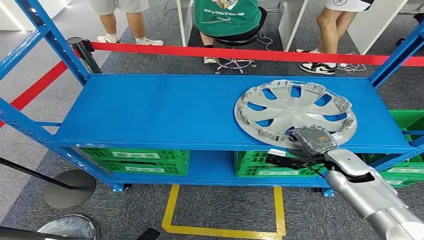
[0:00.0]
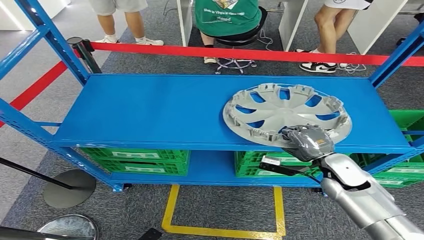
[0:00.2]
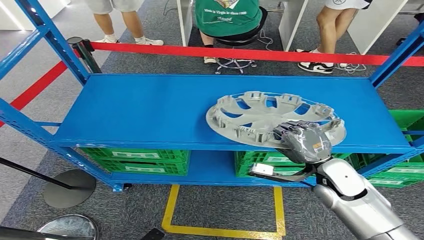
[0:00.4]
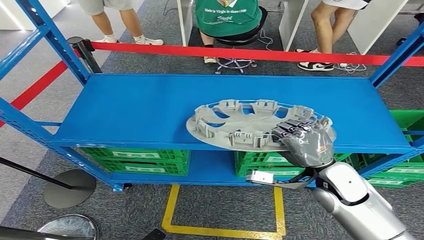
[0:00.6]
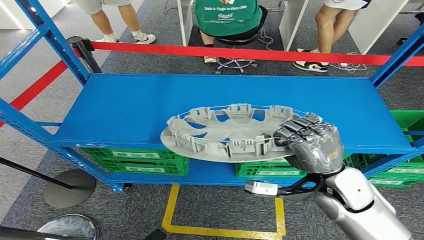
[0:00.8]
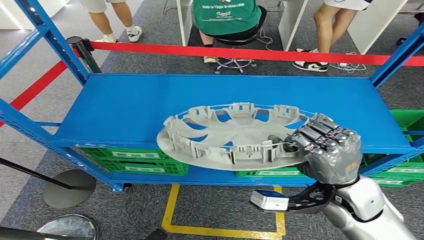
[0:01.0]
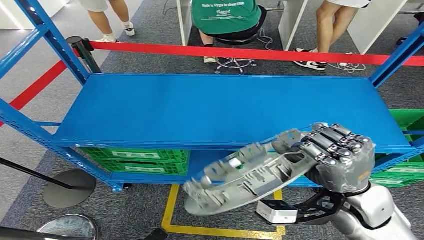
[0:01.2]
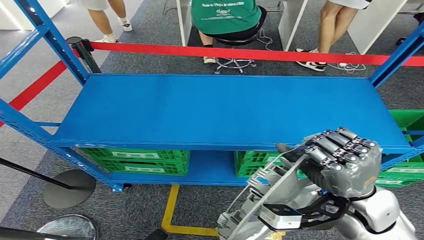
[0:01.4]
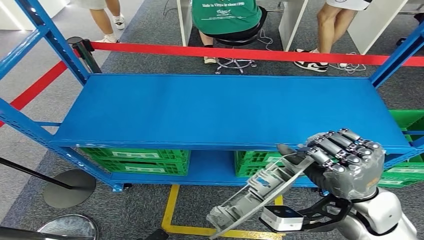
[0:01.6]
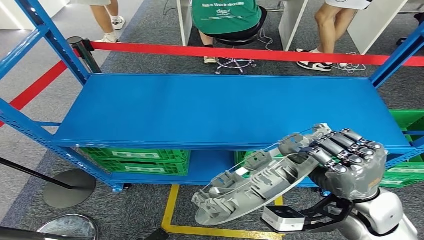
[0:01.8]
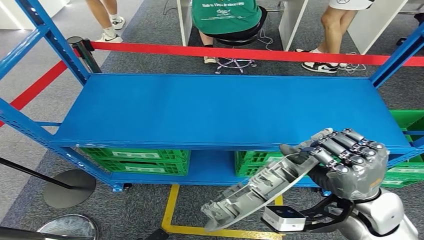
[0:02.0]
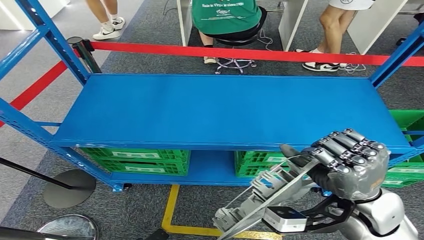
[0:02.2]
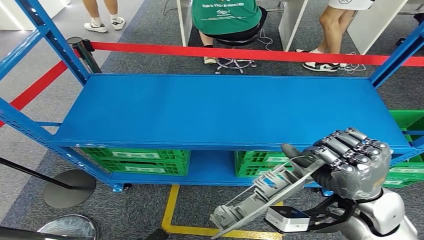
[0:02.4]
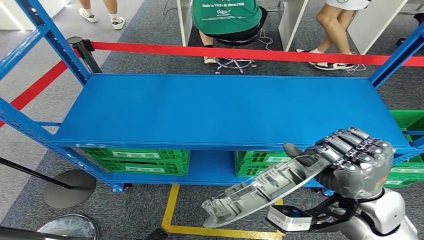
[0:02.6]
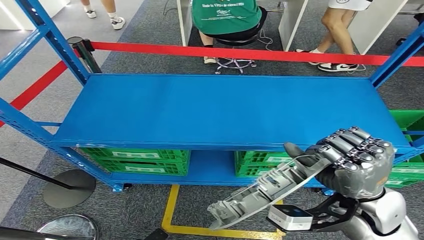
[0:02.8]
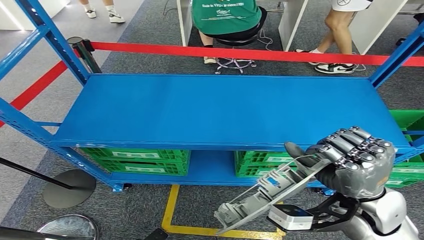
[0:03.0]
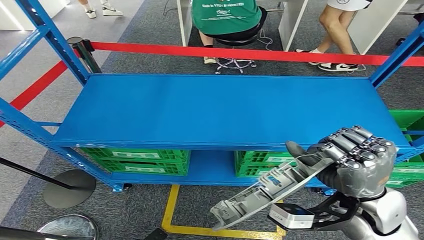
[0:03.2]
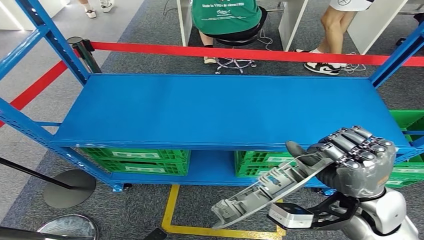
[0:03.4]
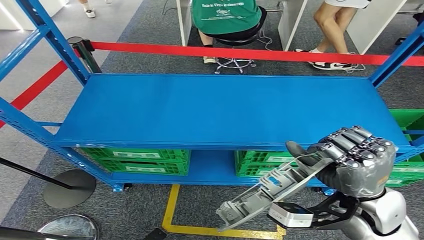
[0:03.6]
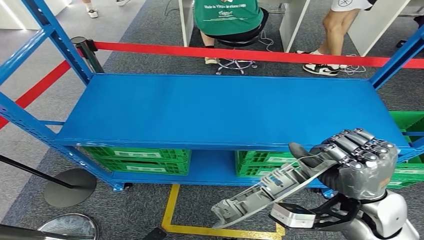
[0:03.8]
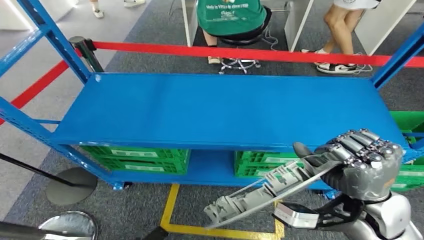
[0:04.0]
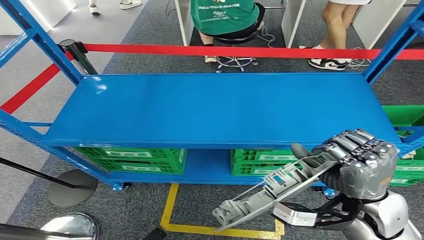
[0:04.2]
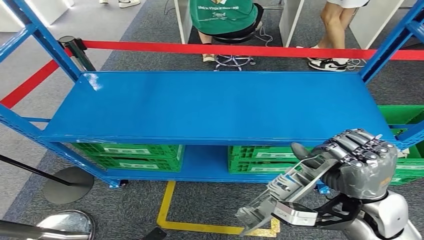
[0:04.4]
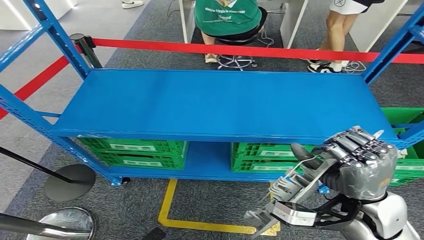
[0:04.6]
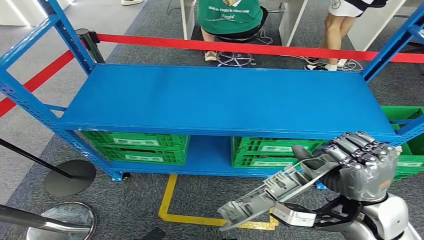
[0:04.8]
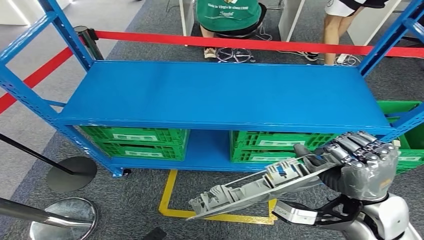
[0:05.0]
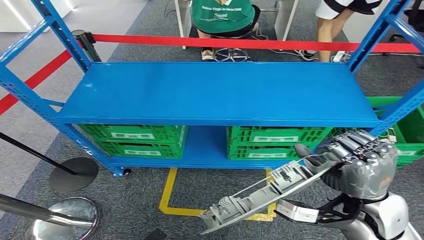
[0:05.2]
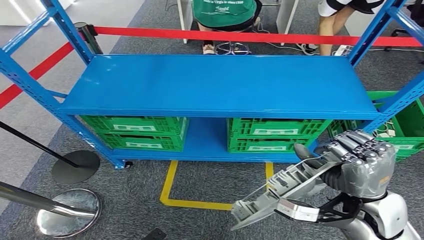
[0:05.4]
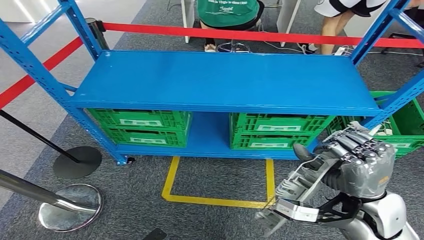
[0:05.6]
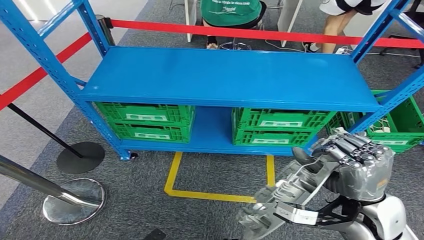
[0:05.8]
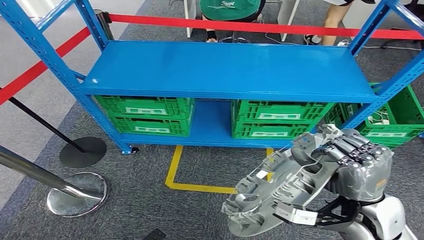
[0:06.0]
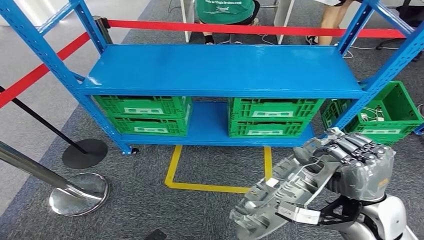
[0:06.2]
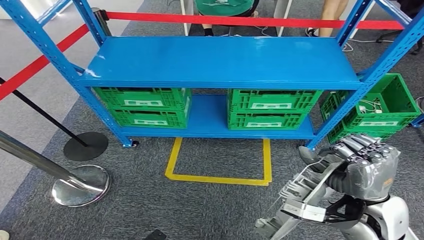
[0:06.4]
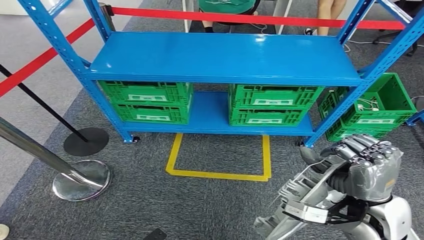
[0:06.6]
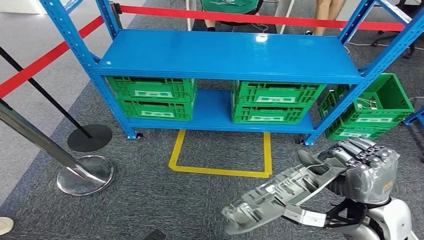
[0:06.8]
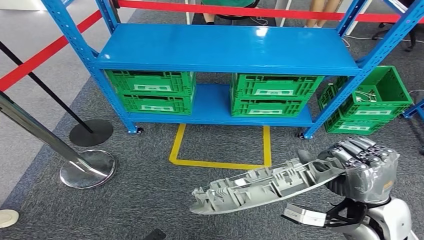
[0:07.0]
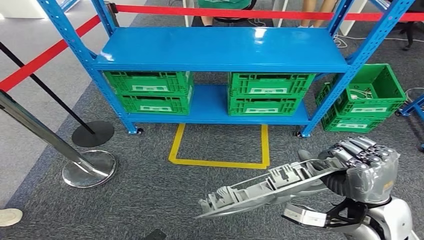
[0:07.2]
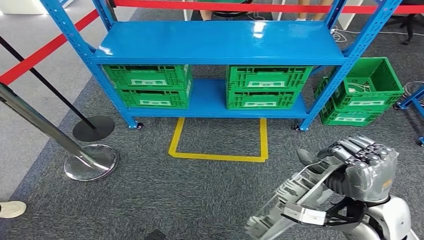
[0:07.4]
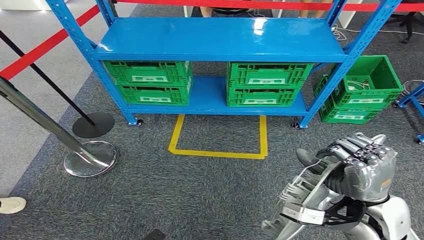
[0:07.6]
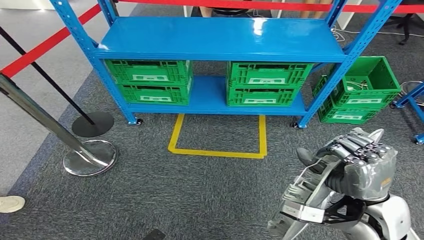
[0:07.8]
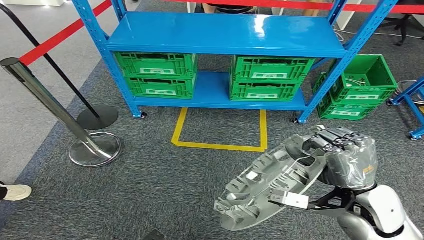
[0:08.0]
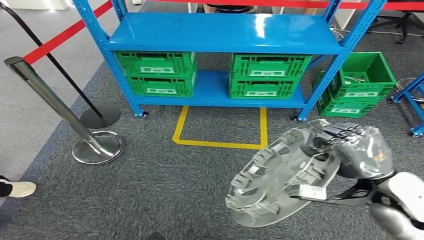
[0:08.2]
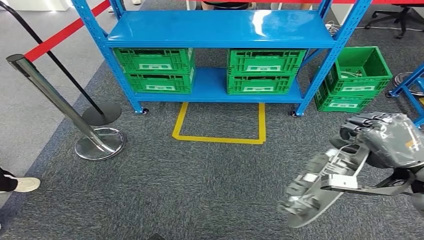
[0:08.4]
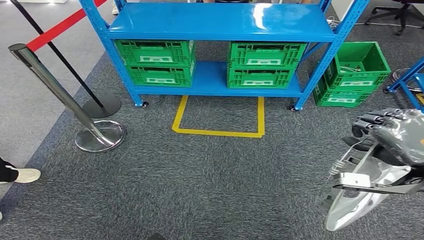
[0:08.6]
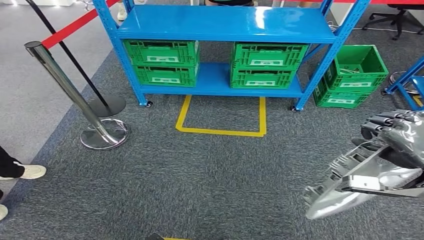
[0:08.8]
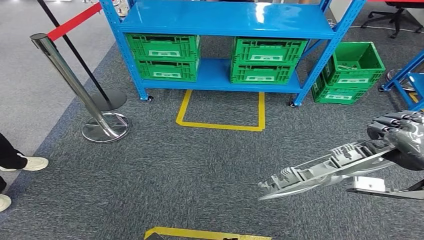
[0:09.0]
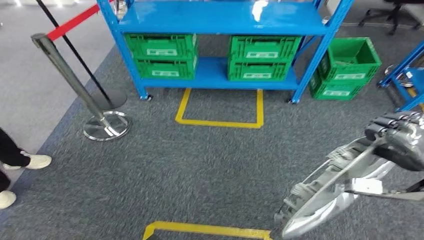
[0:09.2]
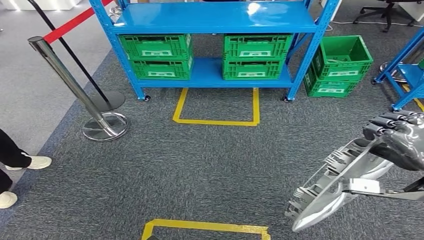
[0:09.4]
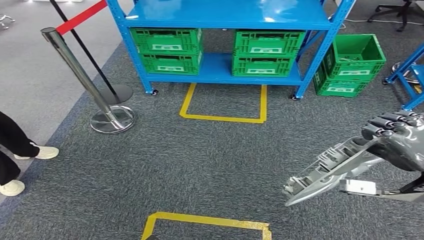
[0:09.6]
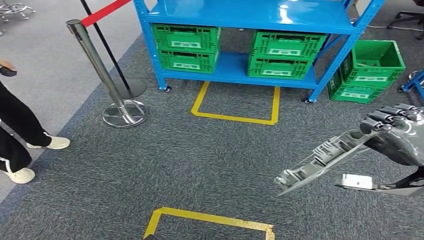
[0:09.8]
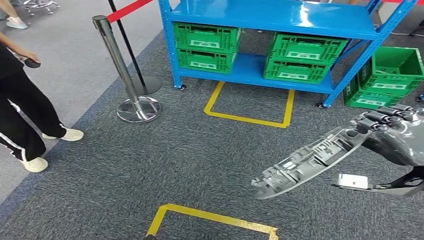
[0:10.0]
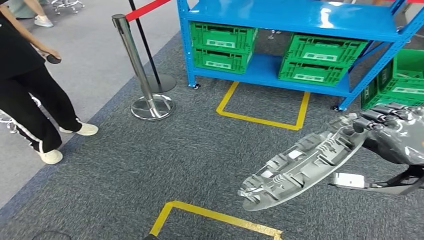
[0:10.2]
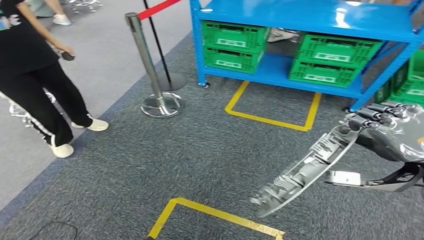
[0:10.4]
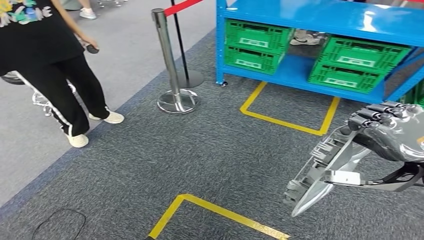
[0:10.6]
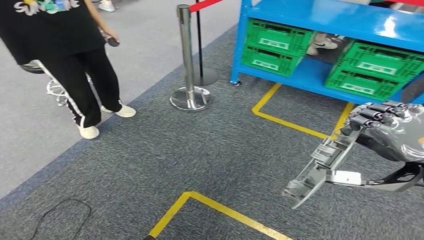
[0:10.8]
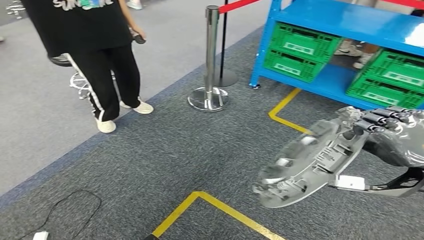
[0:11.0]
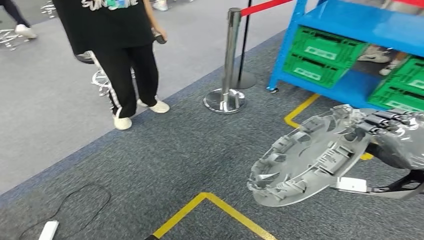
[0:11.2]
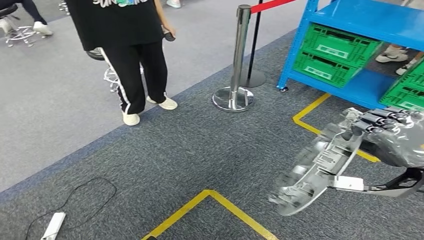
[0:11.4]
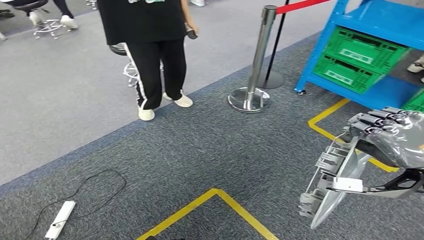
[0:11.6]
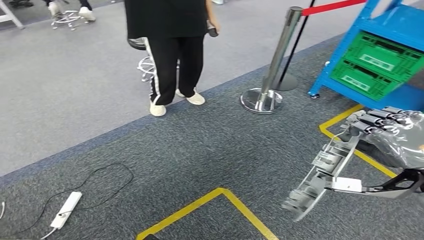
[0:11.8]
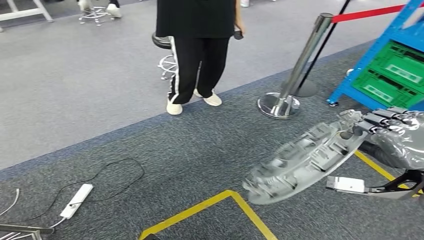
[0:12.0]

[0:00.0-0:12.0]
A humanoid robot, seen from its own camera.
Step, 0:00.0 to 0:03.2: Take small components from the rack.
0:01.6 to 0:03.0: Neither hand changes place.

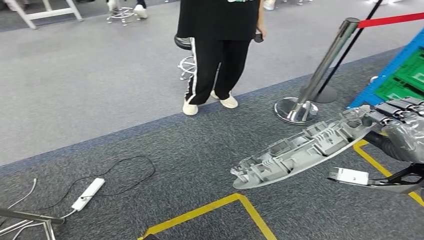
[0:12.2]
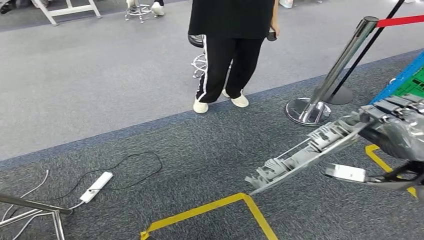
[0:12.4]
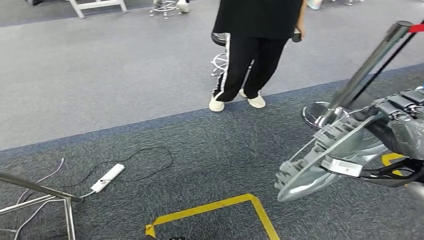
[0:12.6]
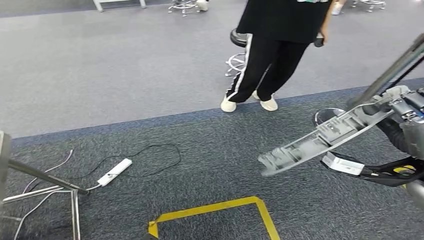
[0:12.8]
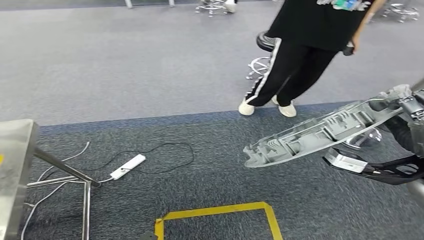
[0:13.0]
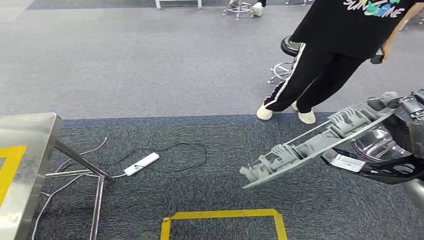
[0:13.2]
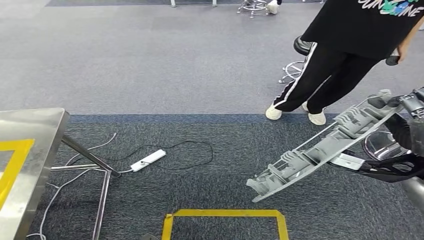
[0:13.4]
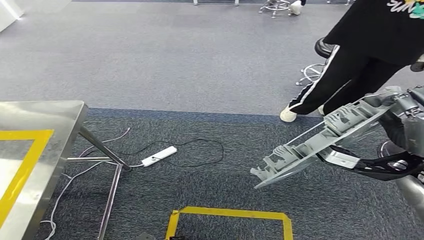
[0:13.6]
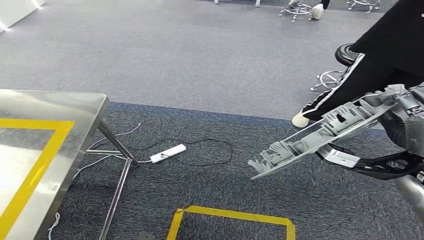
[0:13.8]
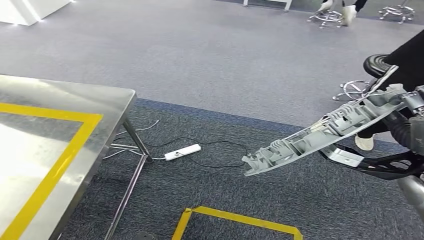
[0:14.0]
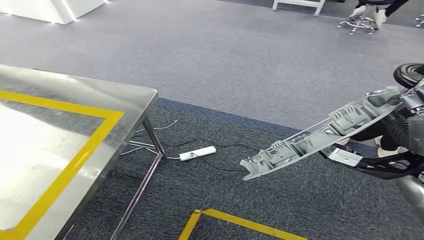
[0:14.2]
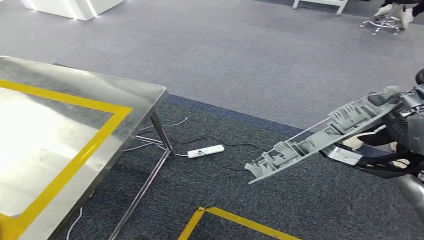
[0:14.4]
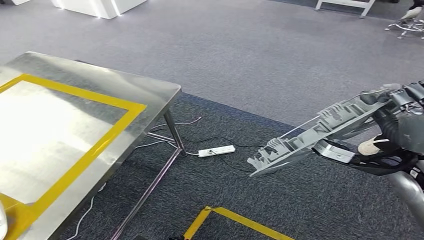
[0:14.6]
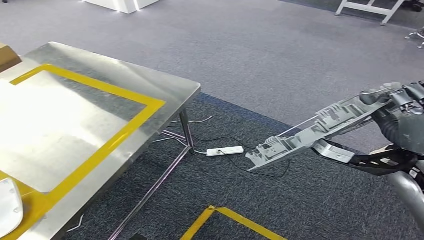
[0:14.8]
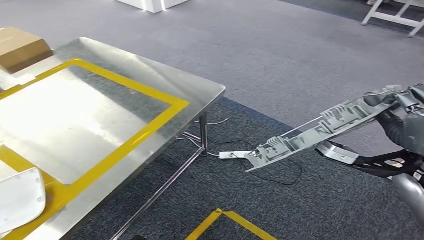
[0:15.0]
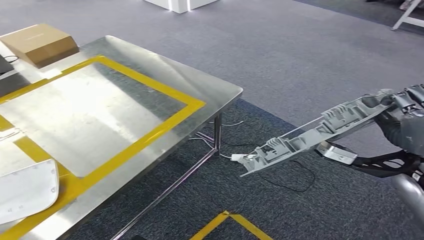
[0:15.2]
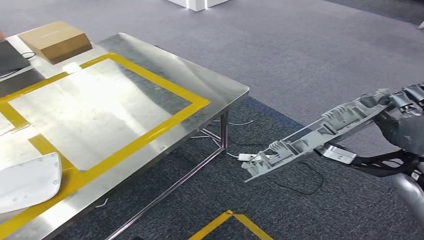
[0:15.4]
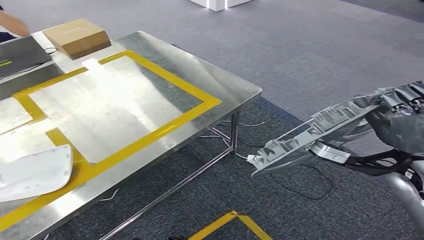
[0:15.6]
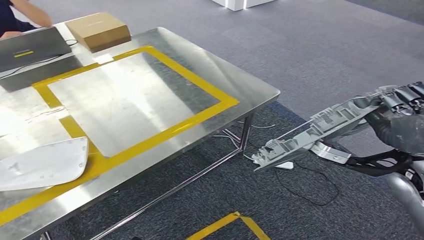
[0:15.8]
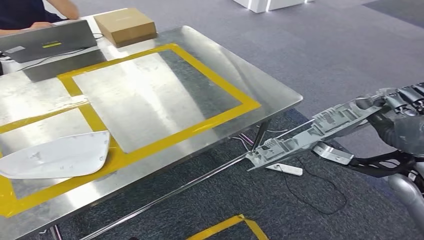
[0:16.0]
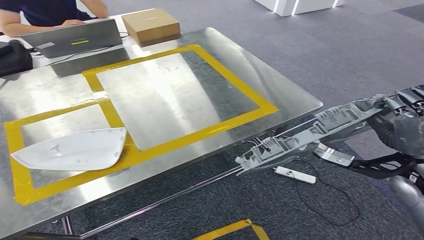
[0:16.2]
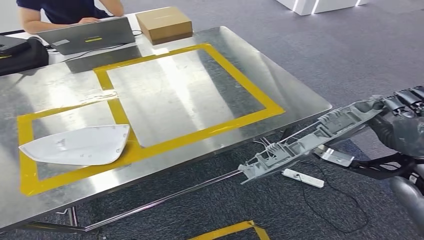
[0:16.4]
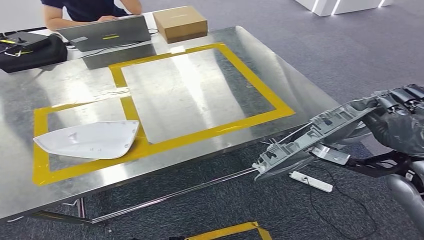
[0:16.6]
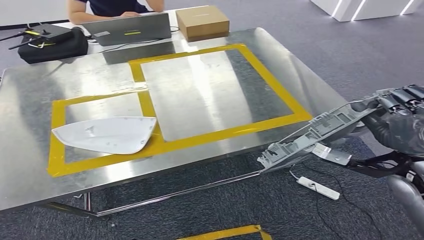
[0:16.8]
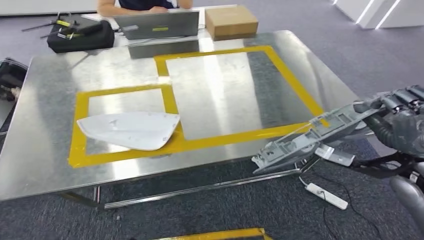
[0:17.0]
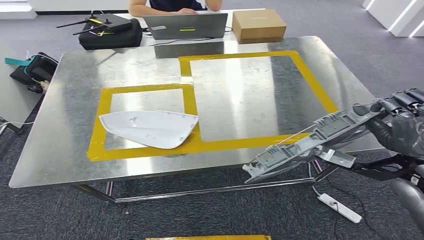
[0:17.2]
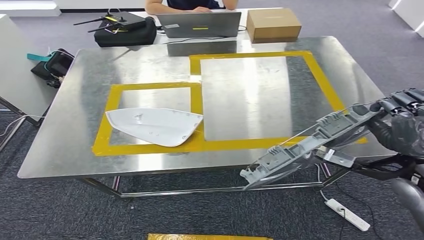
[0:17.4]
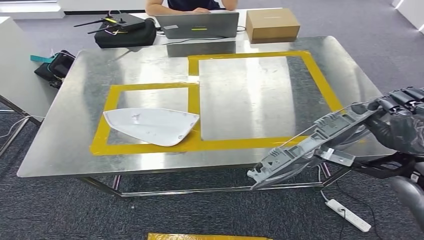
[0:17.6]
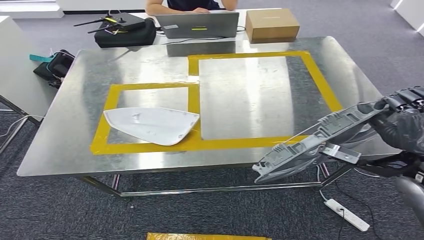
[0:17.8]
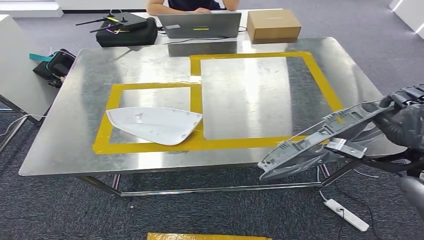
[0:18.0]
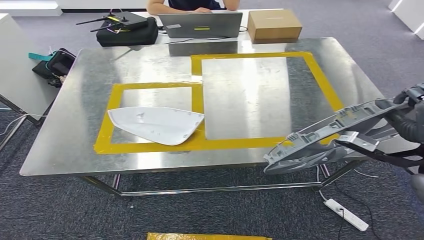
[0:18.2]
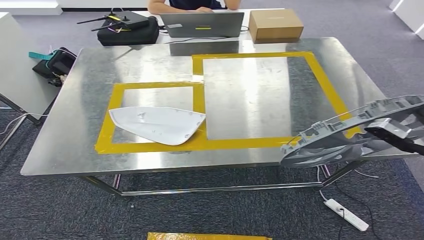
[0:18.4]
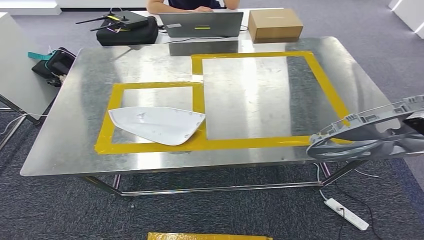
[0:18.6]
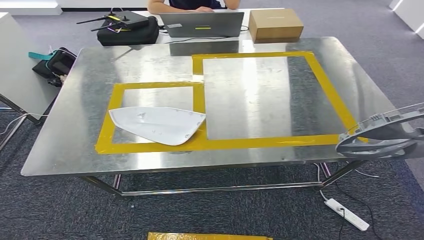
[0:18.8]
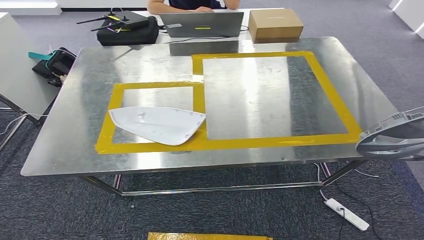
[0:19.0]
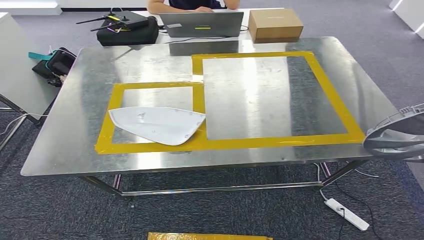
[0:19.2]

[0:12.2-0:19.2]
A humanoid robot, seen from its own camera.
Step, 0:12.2 to 0:17.0: Move the small parts to the workbench.
0:17.8 to 0:19.2: The right hand is displaced to the right by approximately 20 cm.
